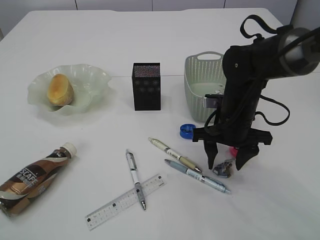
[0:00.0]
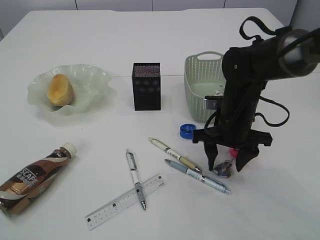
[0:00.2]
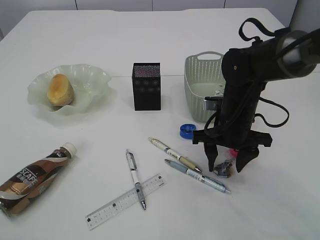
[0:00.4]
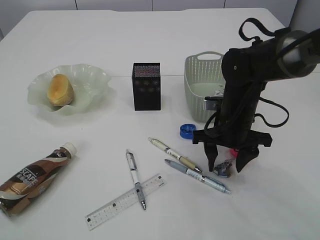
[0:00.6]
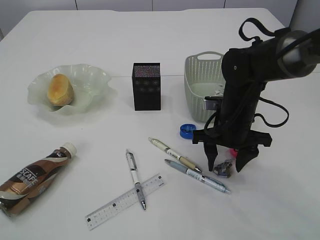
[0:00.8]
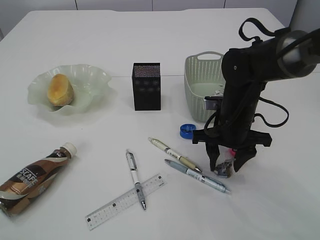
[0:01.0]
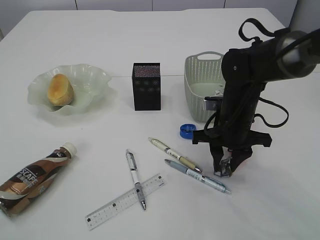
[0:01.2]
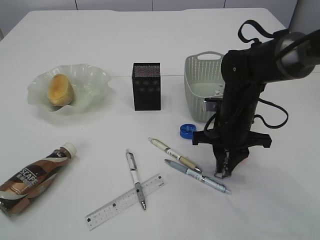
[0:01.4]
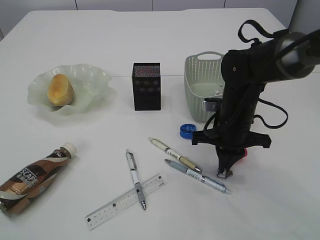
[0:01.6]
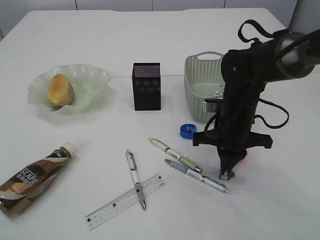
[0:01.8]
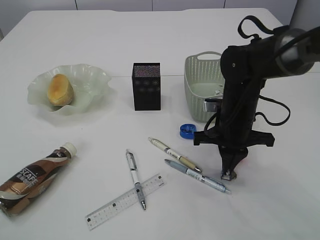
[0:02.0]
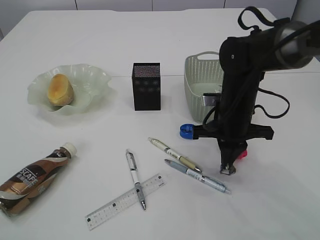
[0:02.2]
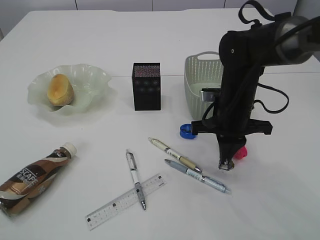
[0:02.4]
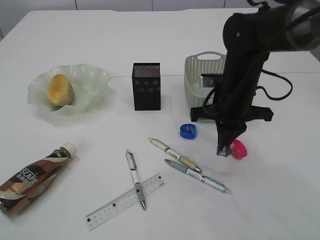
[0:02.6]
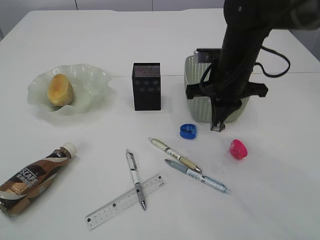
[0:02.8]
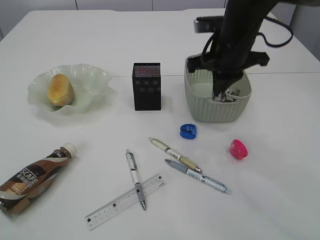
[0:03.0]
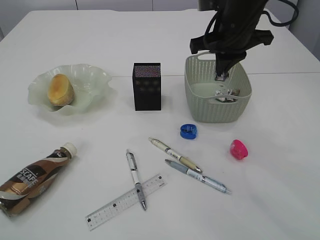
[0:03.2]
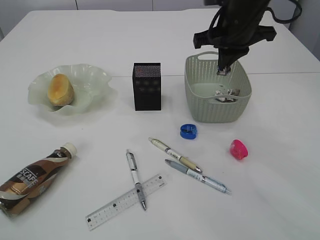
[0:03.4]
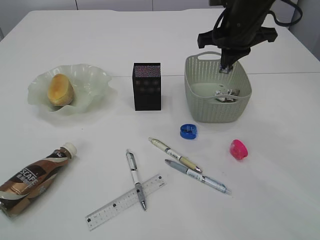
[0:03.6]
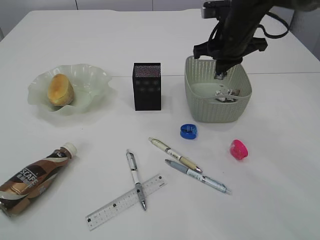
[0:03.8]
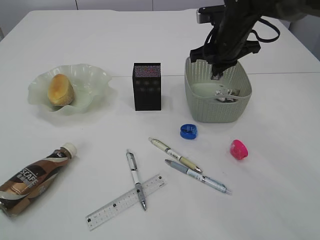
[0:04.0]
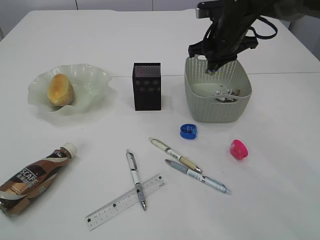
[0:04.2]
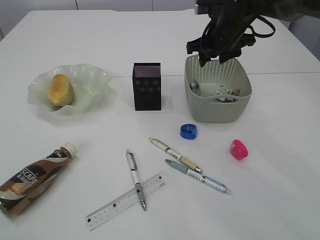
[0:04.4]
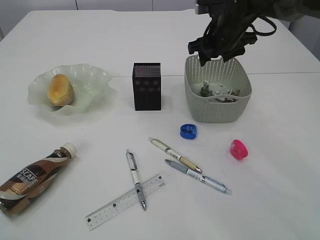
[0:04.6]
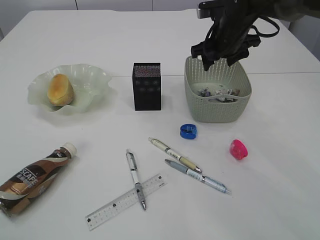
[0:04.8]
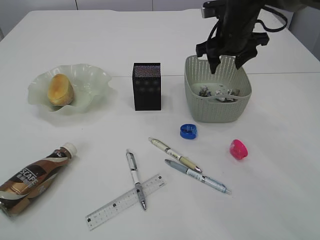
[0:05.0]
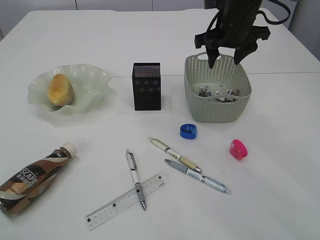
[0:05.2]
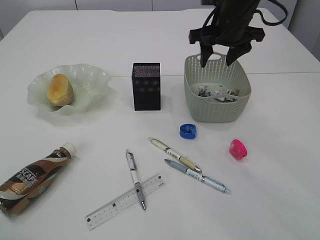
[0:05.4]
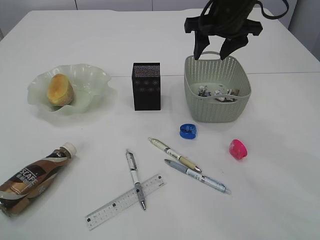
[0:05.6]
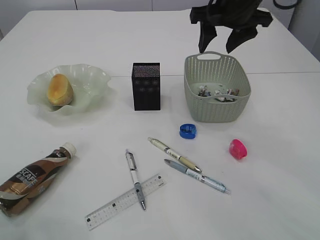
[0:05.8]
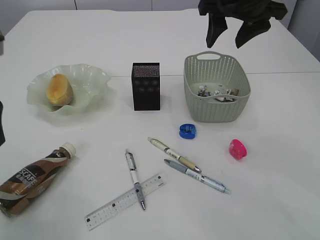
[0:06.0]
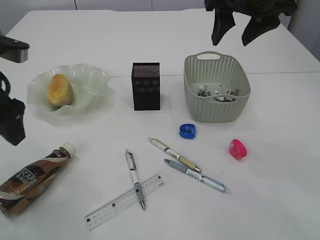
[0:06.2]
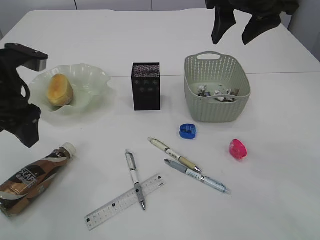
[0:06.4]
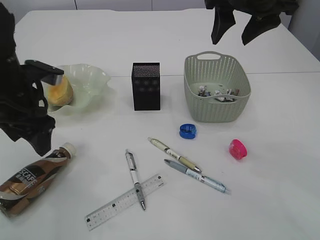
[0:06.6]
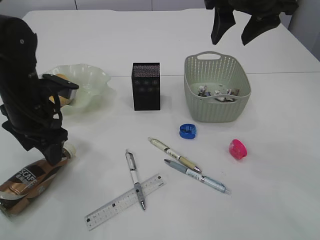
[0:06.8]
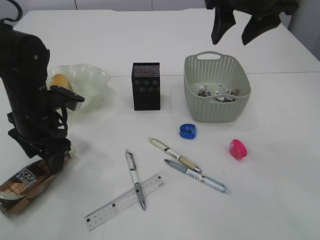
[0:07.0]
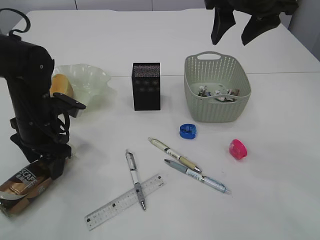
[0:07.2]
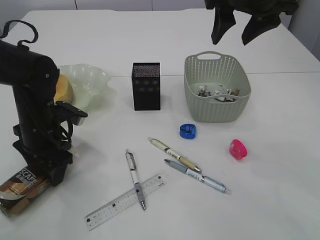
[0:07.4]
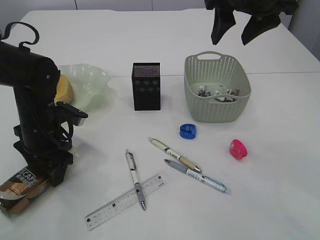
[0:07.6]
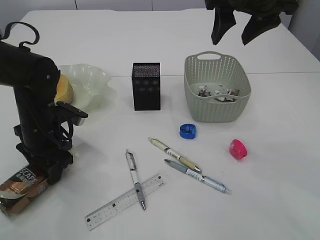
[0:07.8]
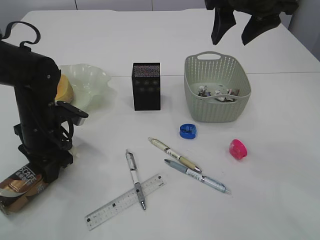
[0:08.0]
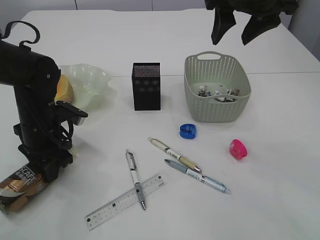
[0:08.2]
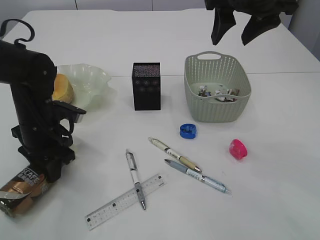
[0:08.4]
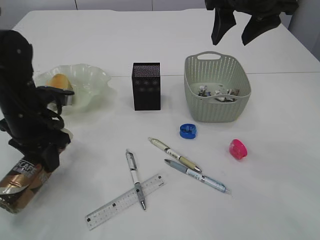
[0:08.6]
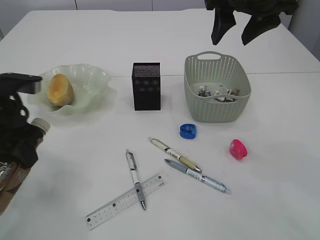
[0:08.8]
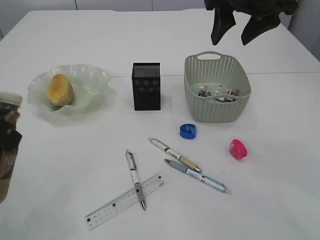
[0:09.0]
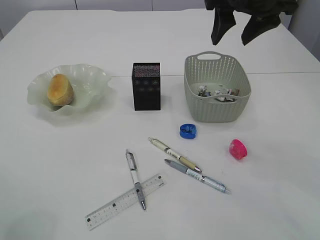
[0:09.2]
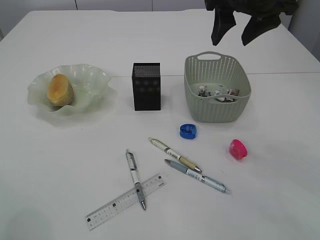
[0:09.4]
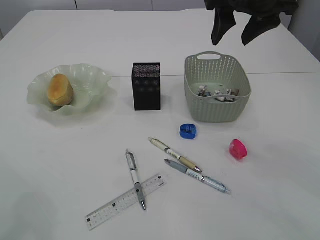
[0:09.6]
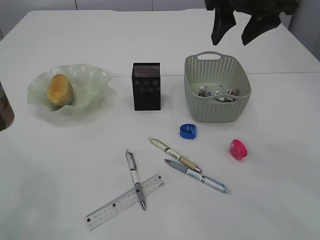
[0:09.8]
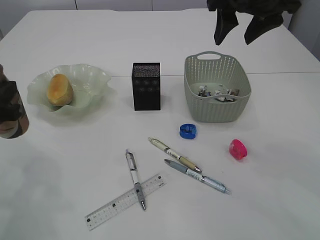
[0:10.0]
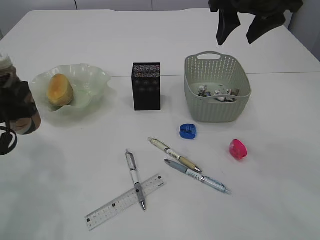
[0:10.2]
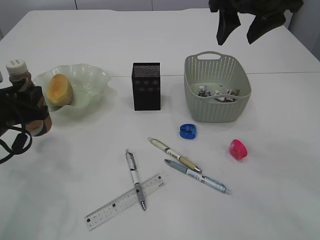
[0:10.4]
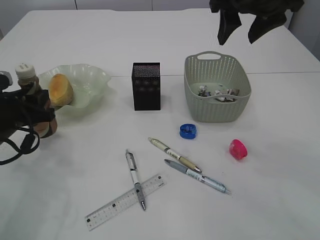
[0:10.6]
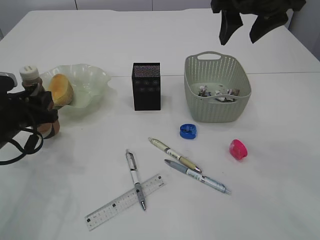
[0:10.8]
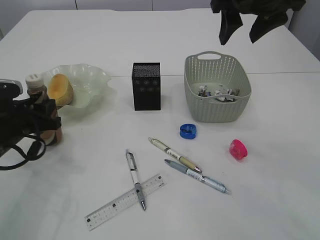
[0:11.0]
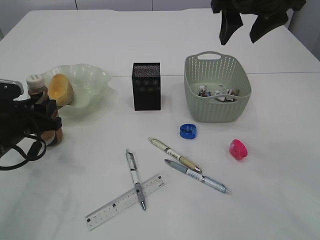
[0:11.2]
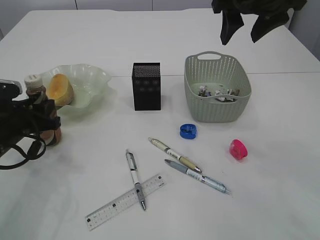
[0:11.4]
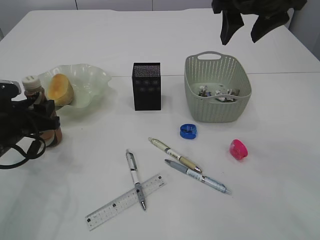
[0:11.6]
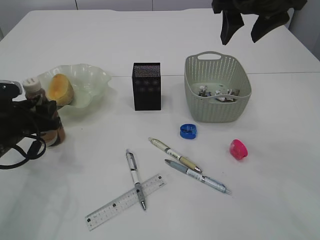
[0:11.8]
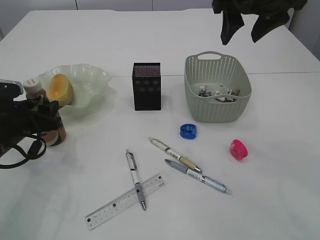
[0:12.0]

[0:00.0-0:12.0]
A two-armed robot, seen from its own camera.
Step, 0:00.0 to 0:02.6: Pick up the waste paper.
Step, 0:02.8 to 0:04.8: Place the waste paper in the basket.
Step, 0:05.0 to 0:08.6: Pick up the bottle with the left arm.
0:00.0 to 0:01.6: The right gripper closes up.
0:01.6 to 0:03.0: The right gripper is displaced upward by some 15 cm.
0:03.0 to 0:04.4: The right gripper travels forward by some 10 cm, and opens its fingers.
0:04.4 to 0:06.0: The right gripper heads upward and backward, covering about 15 cm; the left gripper shifts roughly 20 cm forward and downward.
0:06.0 to 0:07.6: The left gripper travels downward and forward by some 20 cm.
0:07.6 to 0:09.0: The left gripper travels upward, backward and to the left by approximately 15 cm, and closes its fingers.
0:09.0 to 0:10.4: The left gripper is displaced downward and forward by some 10 cm.
0:10.4 to 0:12.0: The grippers make only small movements.

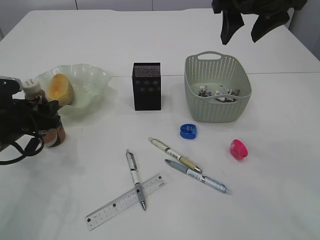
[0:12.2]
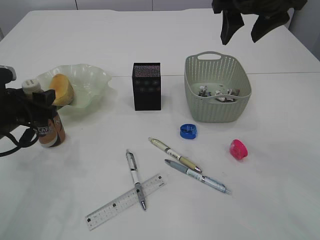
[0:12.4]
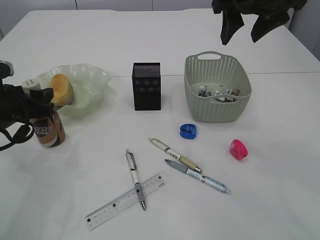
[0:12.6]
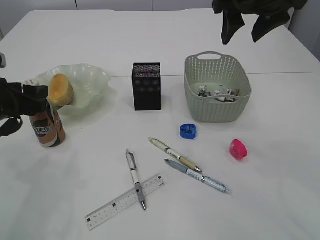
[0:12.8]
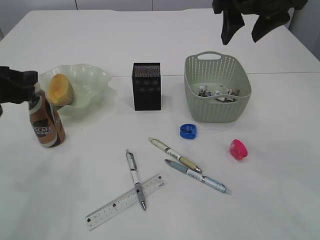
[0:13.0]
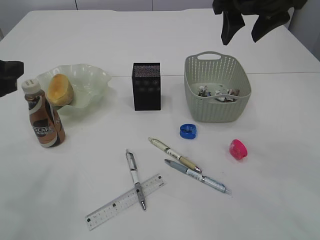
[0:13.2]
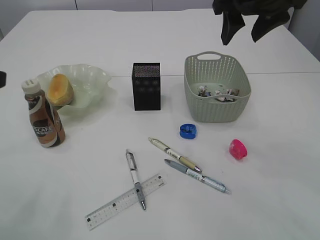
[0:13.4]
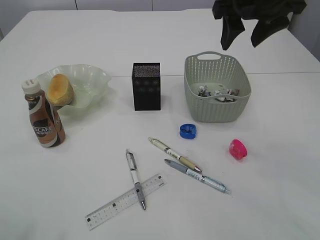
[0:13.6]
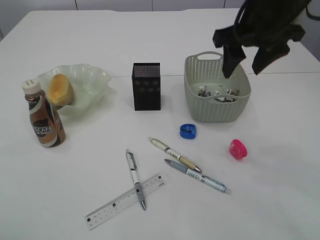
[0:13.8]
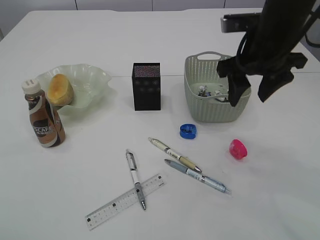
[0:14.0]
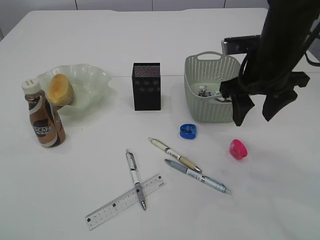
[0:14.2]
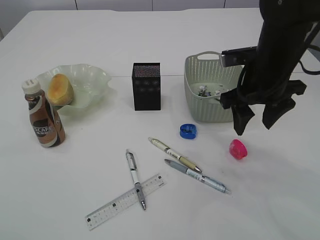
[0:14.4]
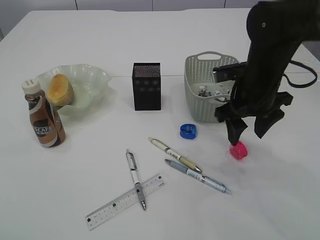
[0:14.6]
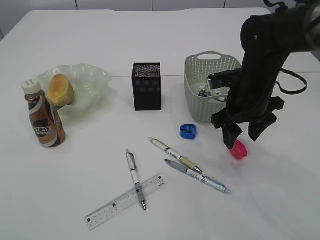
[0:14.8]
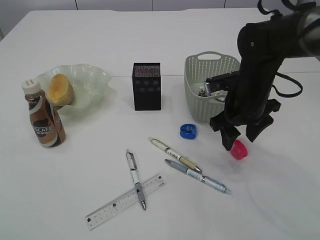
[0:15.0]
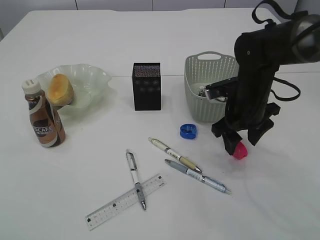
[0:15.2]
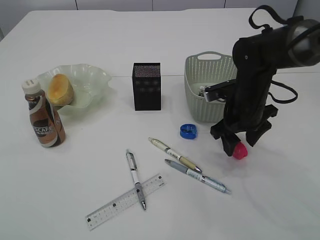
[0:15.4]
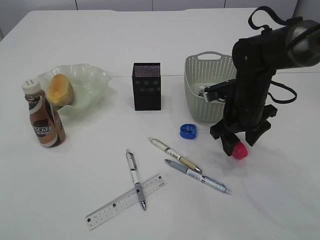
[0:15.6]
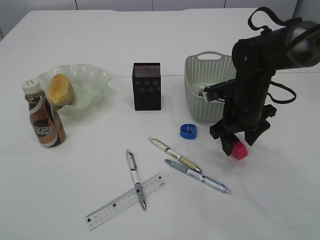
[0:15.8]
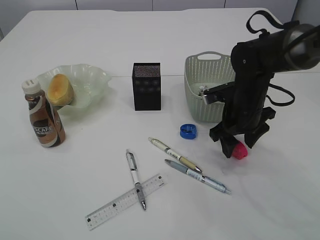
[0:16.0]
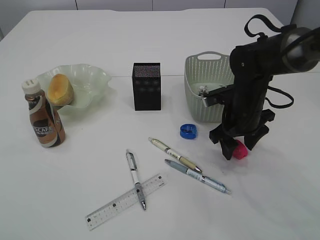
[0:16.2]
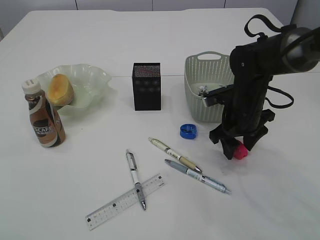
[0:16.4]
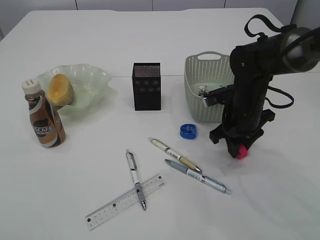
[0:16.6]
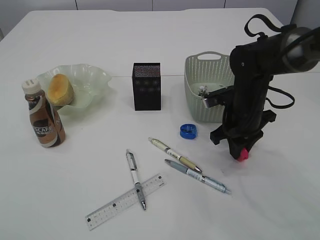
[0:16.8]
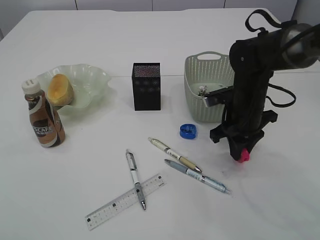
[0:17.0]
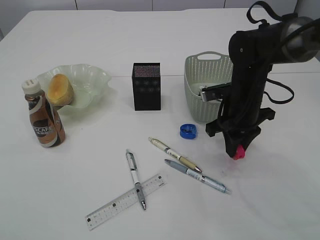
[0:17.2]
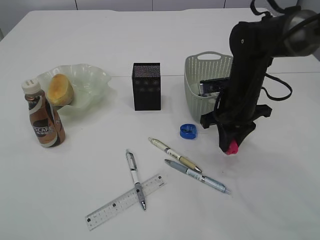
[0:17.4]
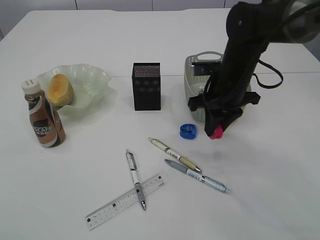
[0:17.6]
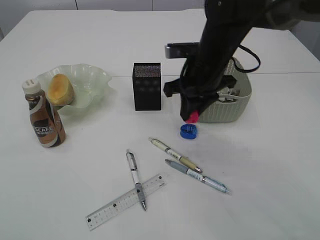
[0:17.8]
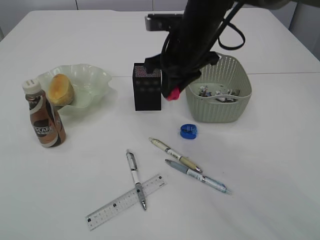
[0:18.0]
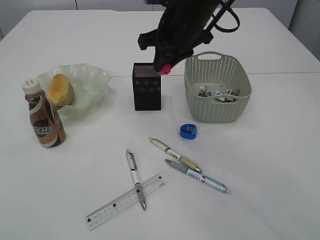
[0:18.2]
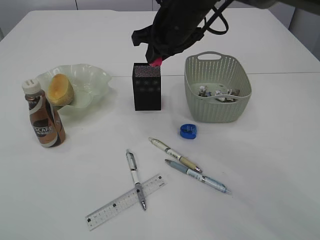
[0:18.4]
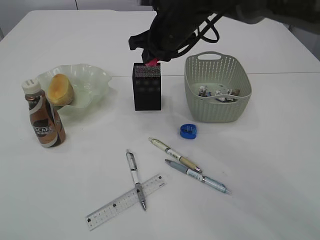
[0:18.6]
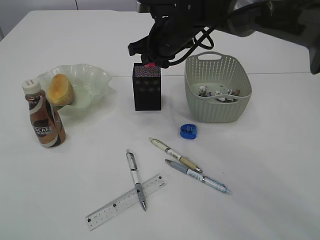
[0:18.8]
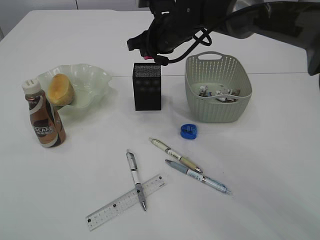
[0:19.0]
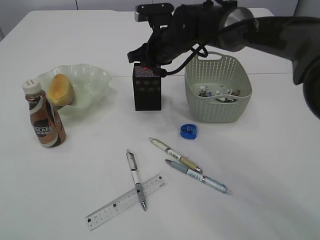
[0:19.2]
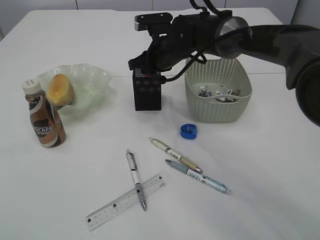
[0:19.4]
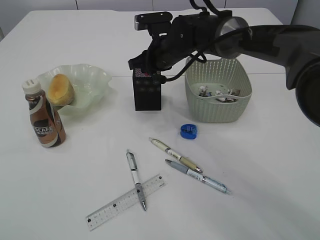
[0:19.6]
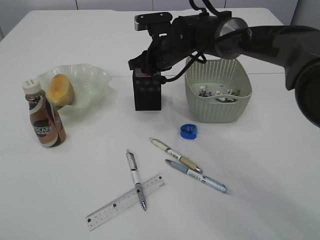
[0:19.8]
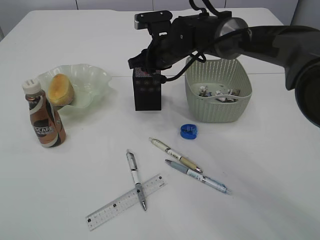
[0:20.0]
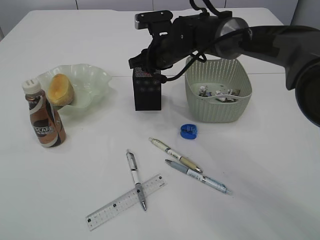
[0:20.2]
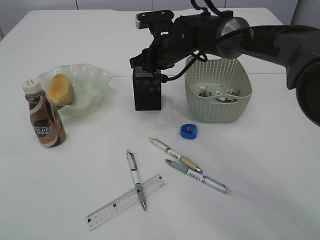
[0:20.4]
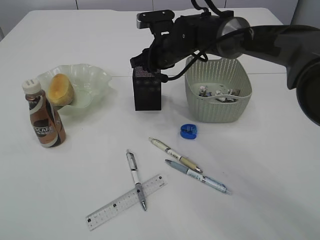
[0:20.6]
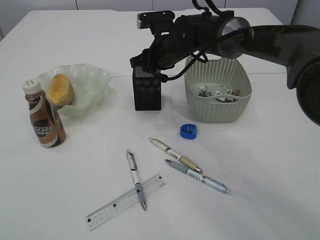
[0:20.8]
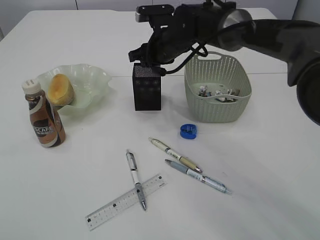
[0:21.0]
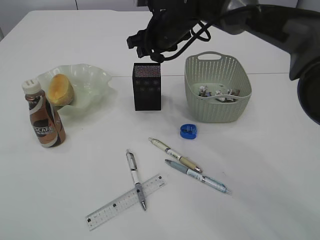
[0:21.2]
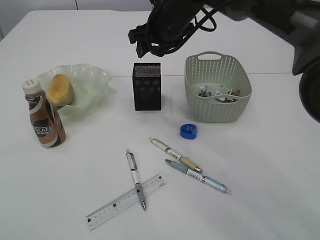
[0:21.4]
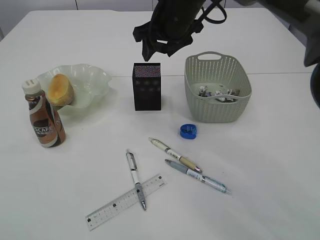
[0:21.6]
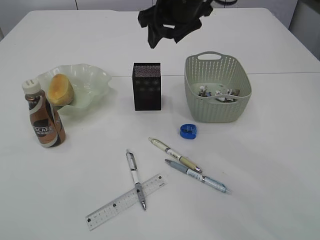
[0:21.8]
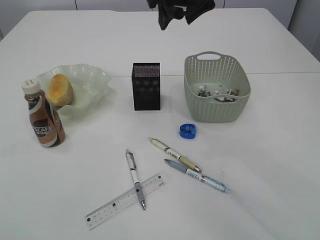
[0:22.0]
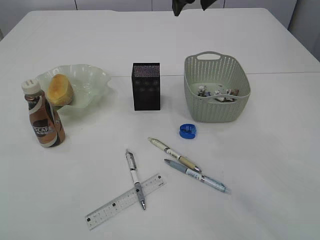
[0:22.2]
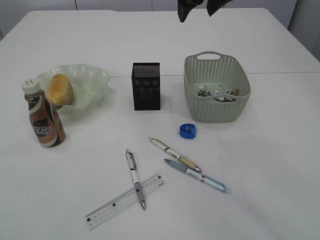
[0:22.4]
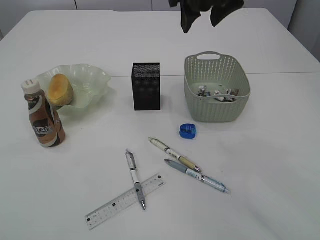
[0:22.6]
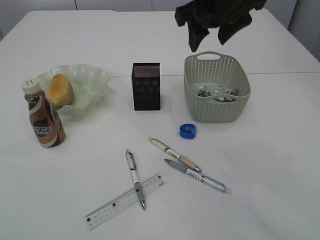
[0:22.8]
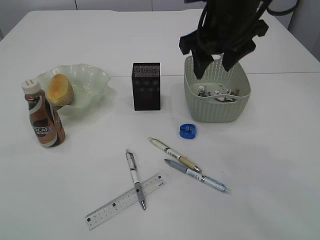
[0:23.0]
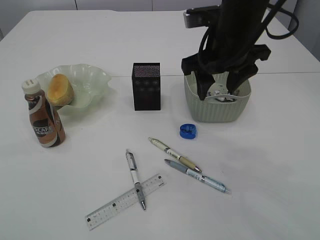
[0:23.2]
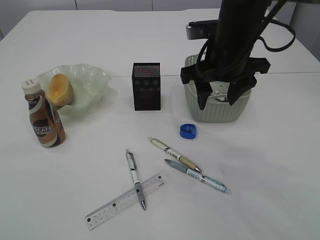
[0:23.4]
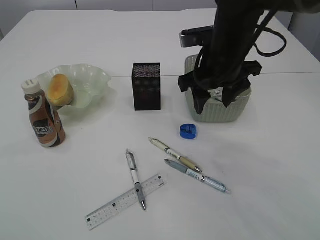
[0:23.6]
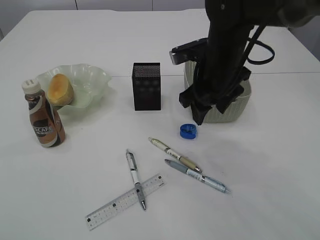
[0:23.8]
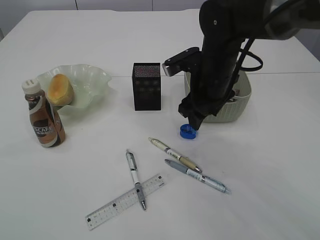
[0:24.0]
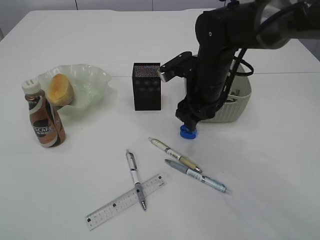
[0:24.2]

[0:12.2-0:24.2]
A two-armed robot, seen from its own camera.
Step, 0:12.2 to 0:17.6: Pick up the red pencil sharpener.
Step, 0:17.8 to 0:21.2: Place the red pencil sharpener into the pen holder.
0:12.2 to 0:13.8: The left gripper goes some 30 cm upward and backward.
0:13.8 to 0:15.2: The right gripper is displaced downward by roughly 15 cm.
0:15.2 to 0:16.6: The right gripper closes its fingers.
0:16.6 to 0:18.2: The right gripper goes approximately 20 cm upward and to the left.
0:18.2 to 0:19.8: The right gripper moves downward and forward, approximately 10 cm.
0:19.8 to 0:21.2: The right gripper opens its fingers.
0:21.2 to 0:22.6: The right gripper shifts some 15 cm upward, backward and to the right.
0:22.6 to 0:24.2: The right gripper goes some 15 cm downward.
